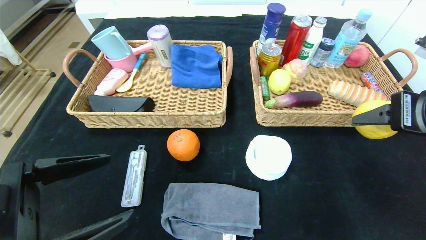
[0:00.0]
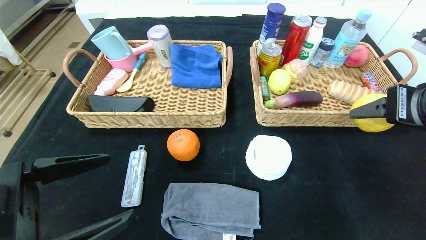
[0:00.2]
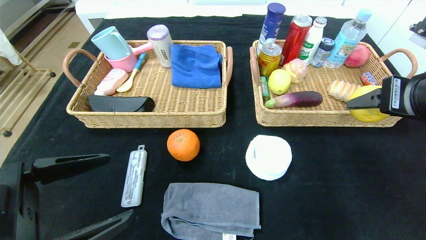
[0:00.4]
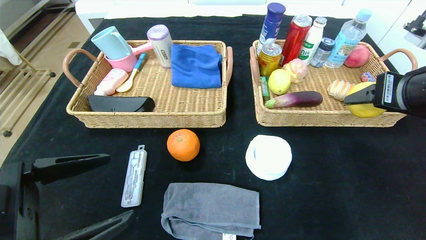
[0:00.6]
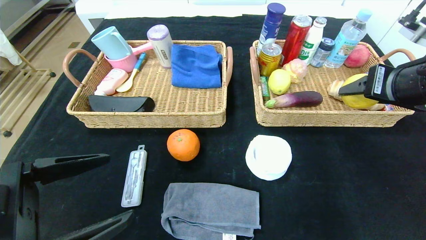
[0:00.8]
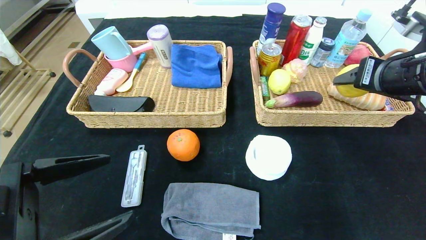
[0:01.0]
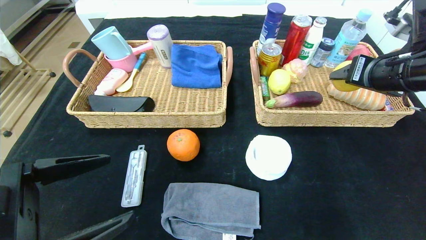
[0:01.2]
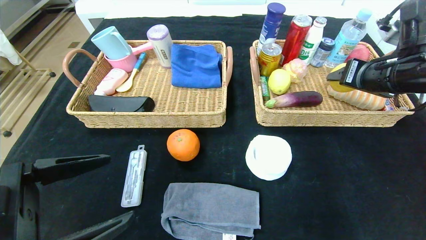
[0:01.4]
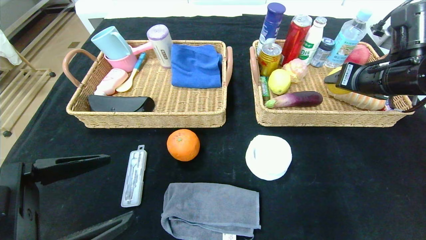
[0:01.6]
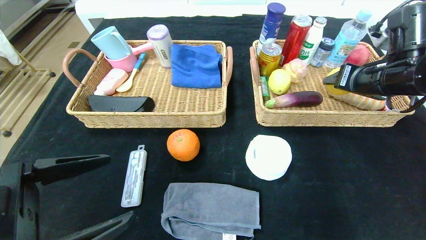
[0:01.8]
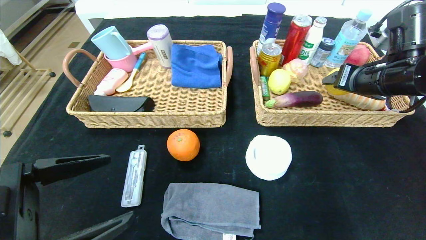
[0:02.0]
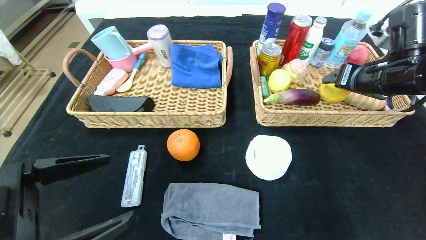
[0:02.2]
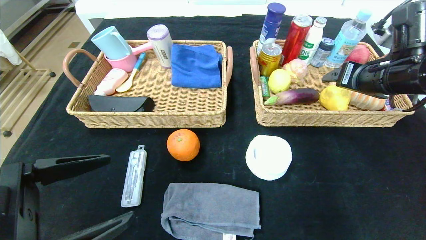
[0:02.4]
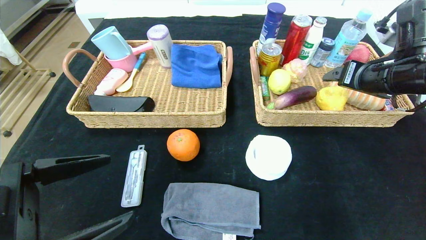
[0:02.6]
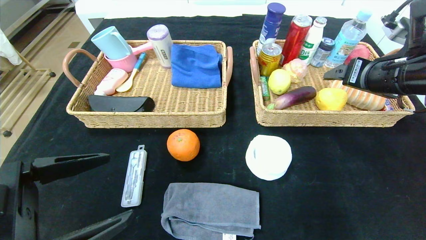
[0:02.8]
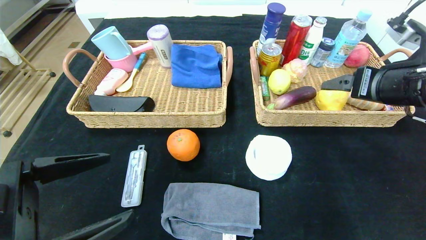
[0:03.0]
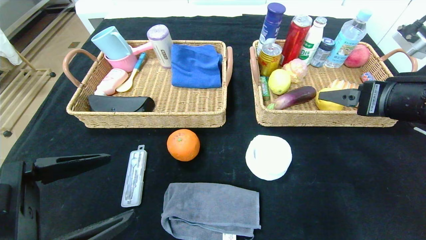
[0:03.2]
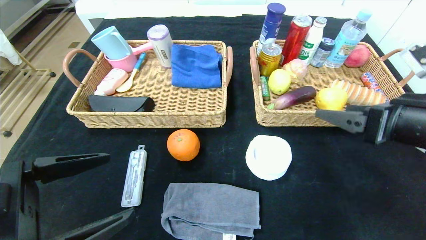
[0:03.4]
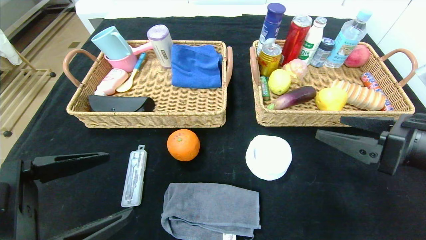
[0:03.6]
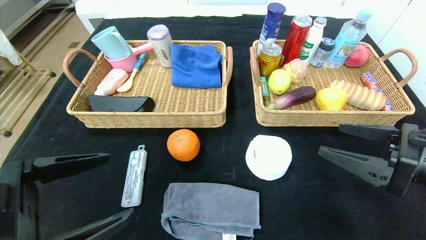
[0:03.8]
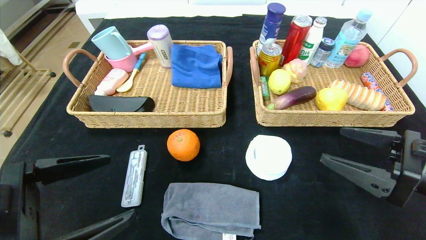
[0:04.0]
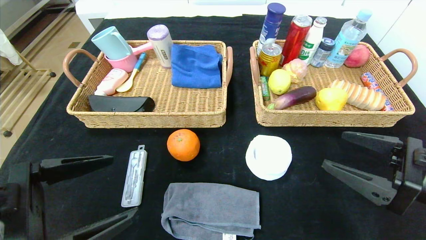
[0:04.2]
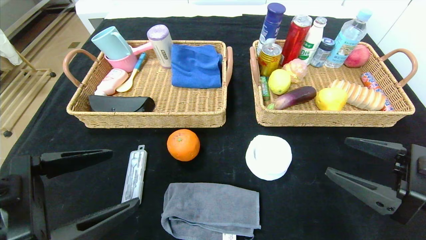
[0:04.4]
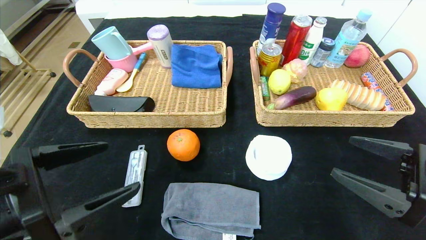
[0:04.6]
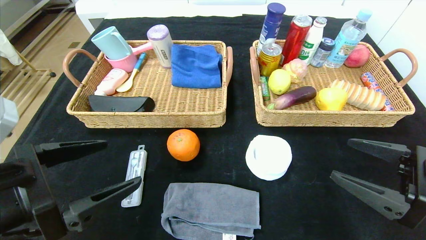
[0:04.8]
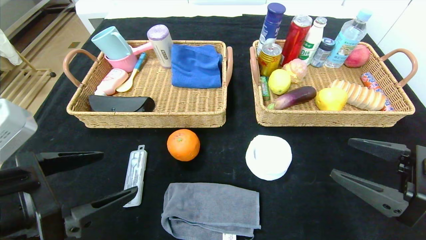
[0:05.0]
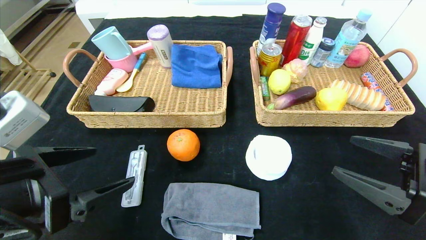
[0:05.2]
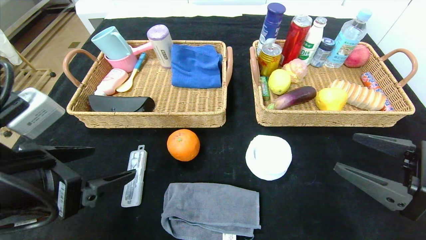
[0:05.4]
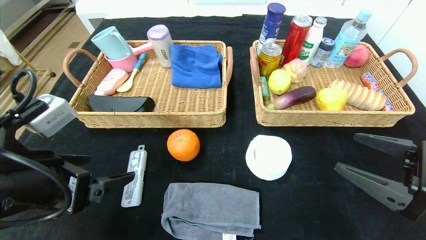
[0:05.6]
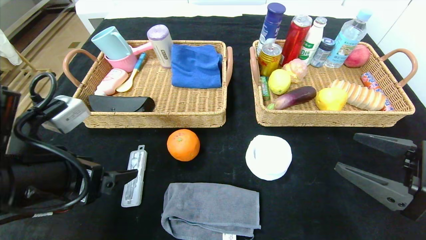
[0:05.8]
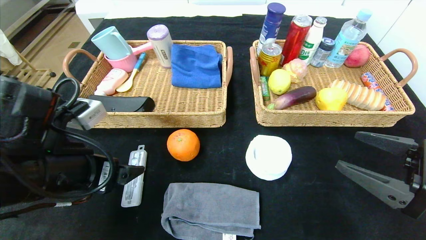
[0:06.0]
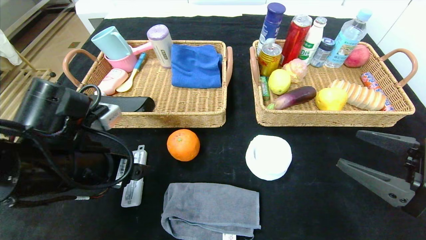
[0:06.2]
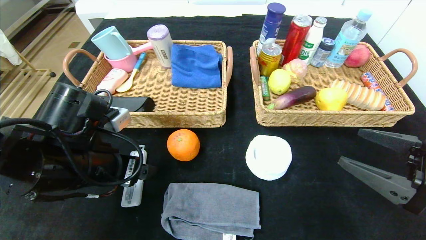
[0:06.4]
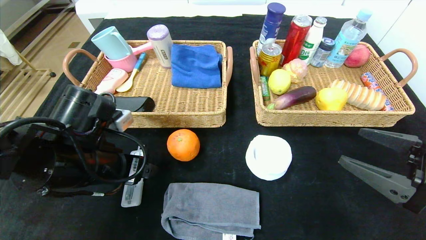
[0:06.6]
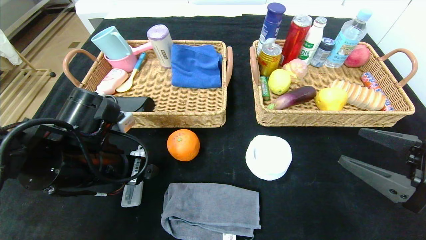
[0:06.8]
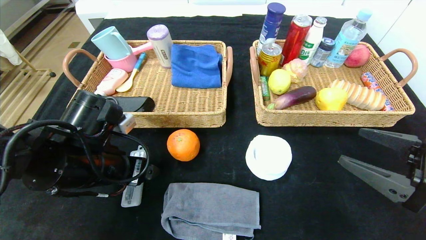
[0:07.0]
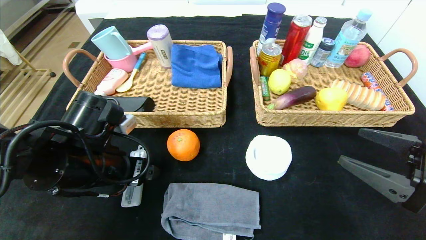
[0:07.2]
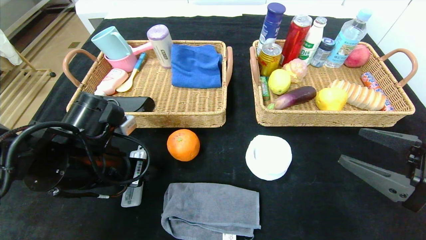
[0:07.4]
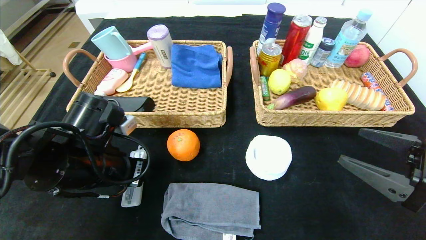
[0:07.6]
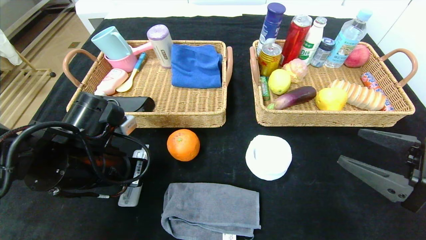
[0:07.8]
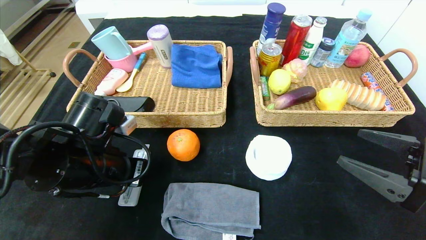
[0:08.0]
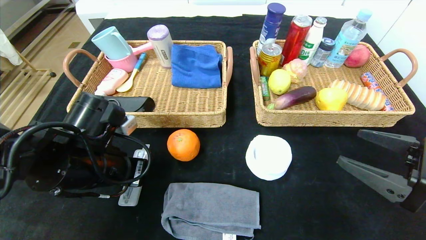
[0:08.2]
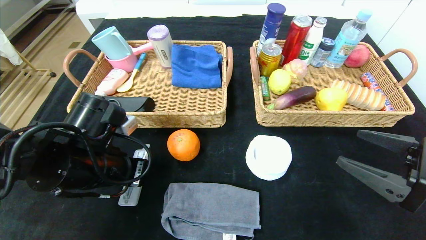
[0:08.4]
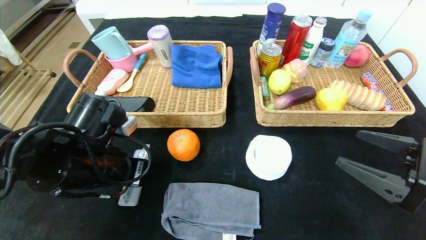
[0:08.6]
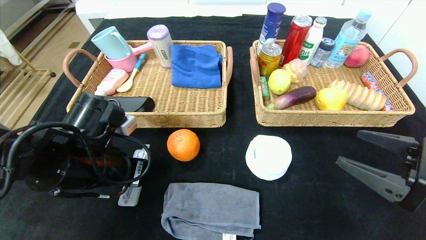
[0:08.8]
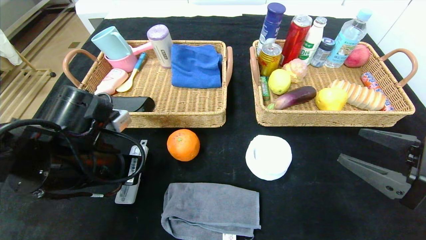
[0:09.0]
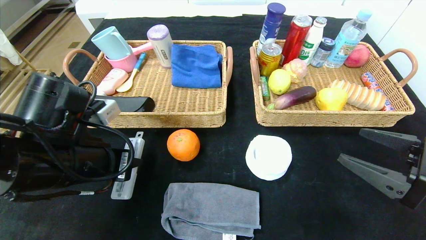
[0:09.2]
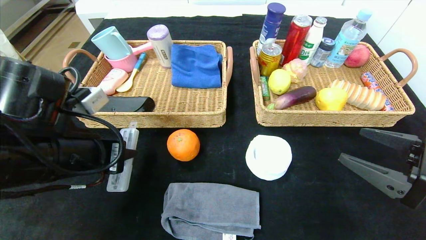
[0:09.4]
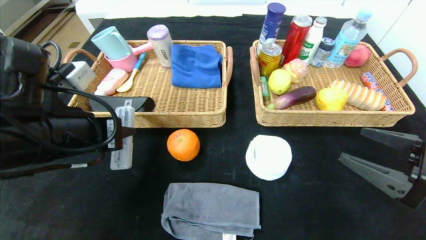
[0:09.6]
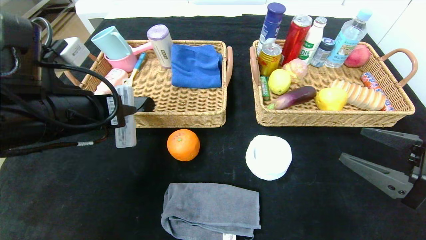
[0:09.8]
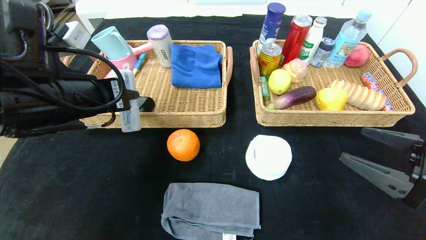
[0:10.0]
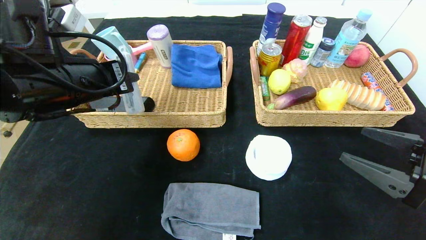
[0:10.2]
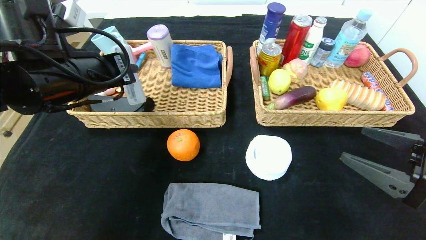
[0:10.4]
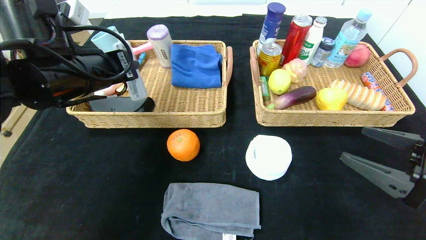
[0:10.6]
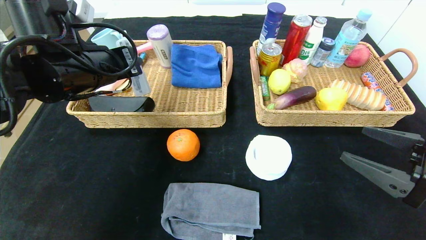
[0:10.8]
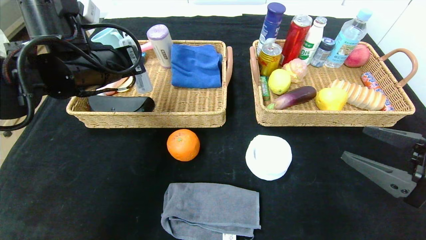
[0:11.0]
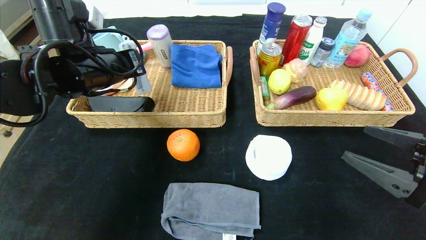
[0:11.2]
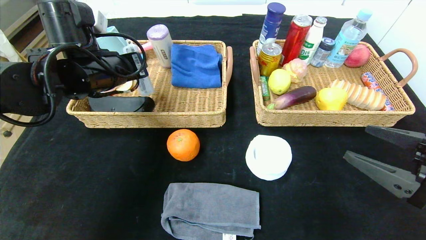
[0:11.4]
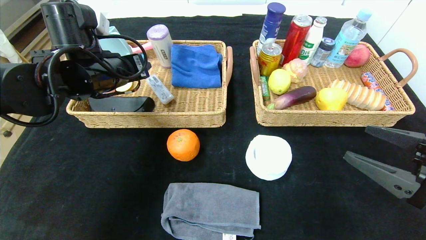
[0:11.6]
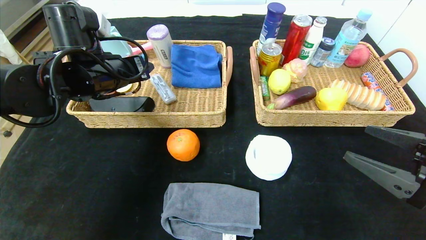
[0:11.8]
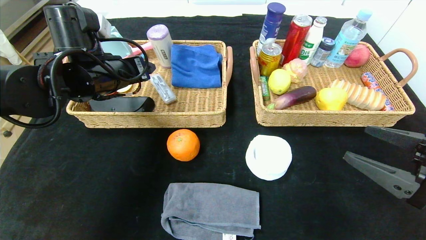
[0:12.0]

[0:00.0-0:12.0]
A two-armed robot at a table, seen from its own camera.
Step, 0:00.0 to 0:02.4: Grasp the pear and put it in the right basket.
Step, 0:02.6 to 0:11.4: Grasp the compass and put it in the left basket.
0:00.0 to 0:01.6: The right gripper heads forward, covering about 15 cm.
0:01.6 to 0:03.0: The right gripper shifts approximately 5 cm backward.
0:03.0 to 0:04.4: The right gripper moves backward and downward, approximately 15 cm.
0:04.4 to 0:06.0: The left gripper goes some 10 cm forward.
0:06.0 to 0:07.6: The left gripper moves roughly 5 cm, and closes its fingers.
0:07.6 to 0:09.0: There are only small adjustments of the grippers.
0:09.0 to 0:10.4: The left gripper travels upward and forward by about 10 cm.
0:10.4 to 0:12.0: The left gripper goes roughly 5 cm forward, and opens.

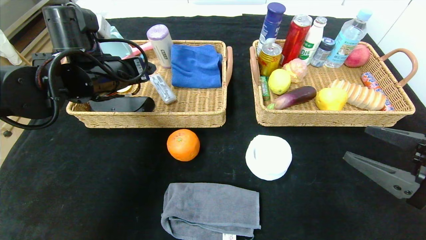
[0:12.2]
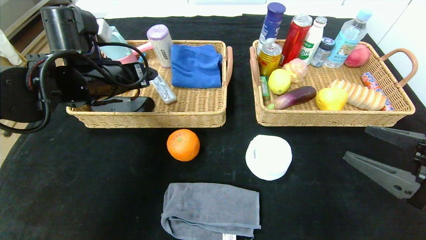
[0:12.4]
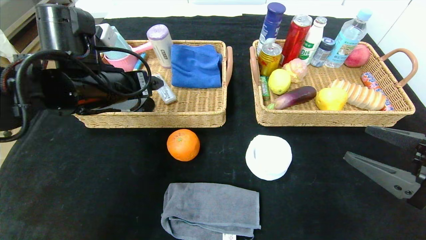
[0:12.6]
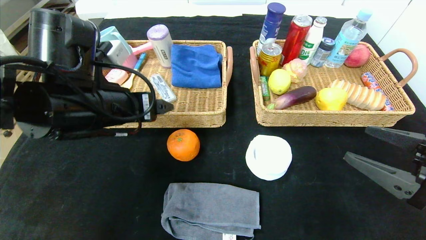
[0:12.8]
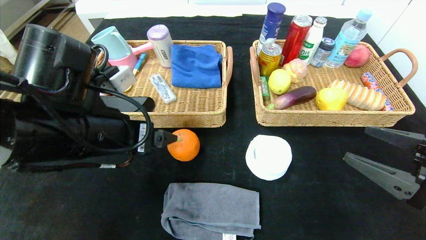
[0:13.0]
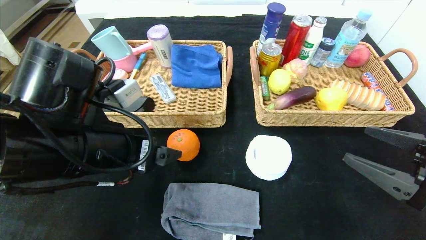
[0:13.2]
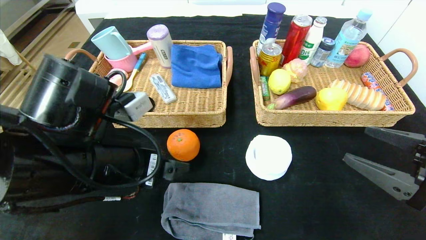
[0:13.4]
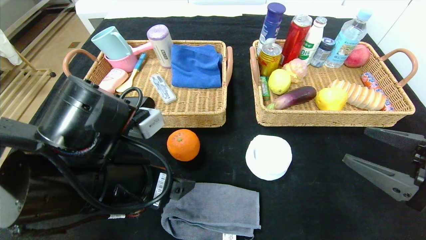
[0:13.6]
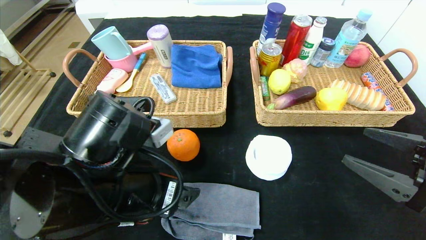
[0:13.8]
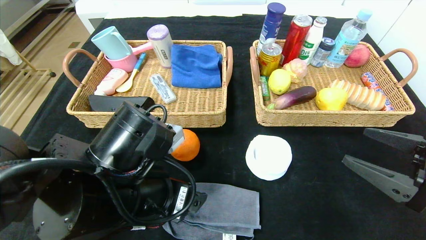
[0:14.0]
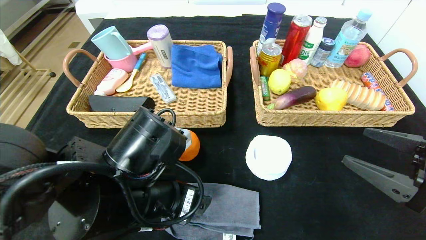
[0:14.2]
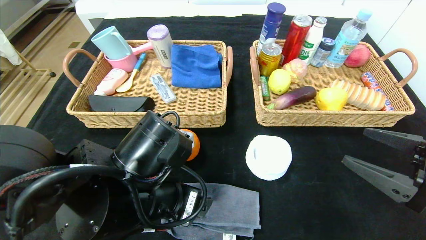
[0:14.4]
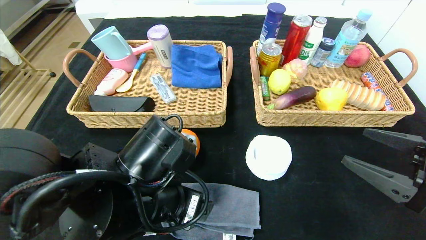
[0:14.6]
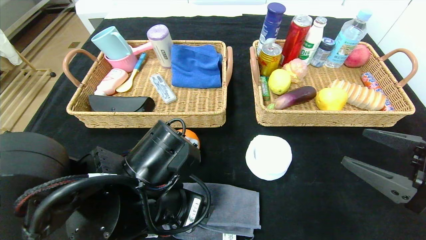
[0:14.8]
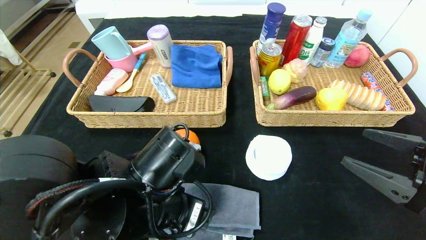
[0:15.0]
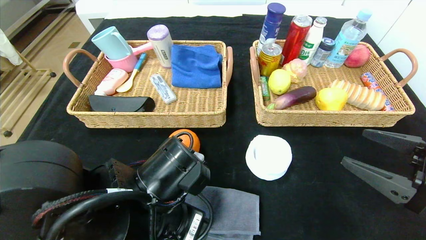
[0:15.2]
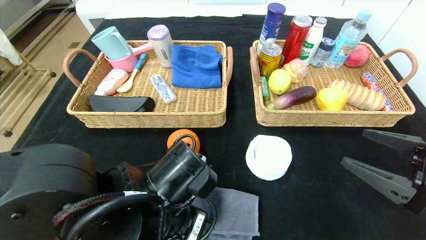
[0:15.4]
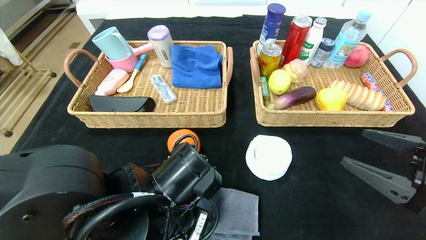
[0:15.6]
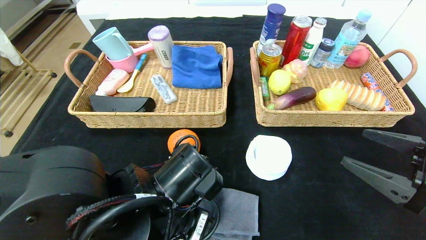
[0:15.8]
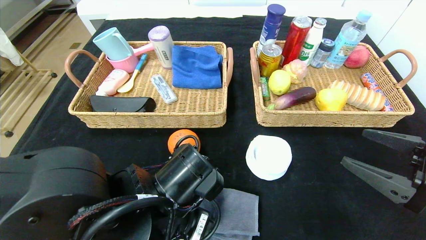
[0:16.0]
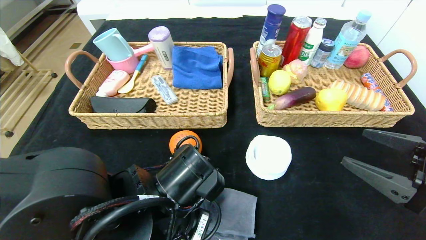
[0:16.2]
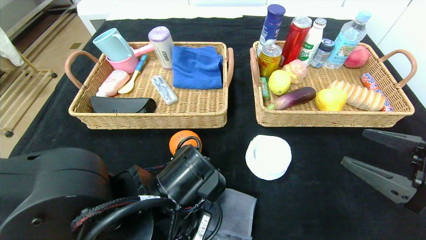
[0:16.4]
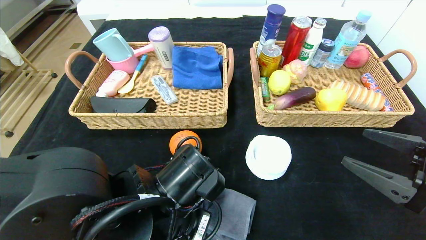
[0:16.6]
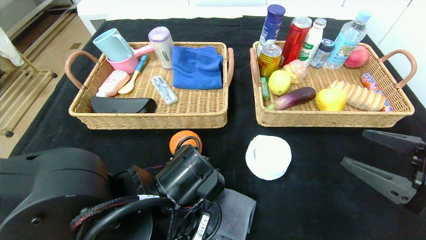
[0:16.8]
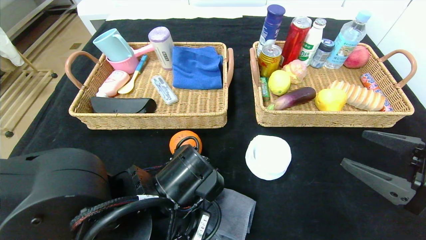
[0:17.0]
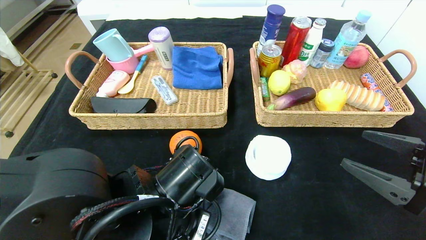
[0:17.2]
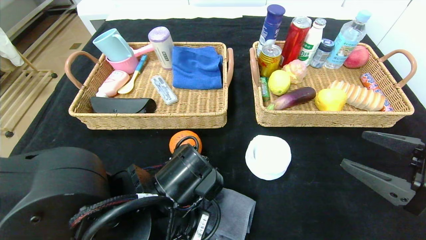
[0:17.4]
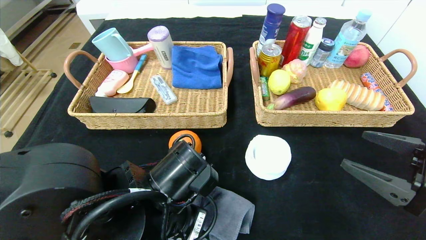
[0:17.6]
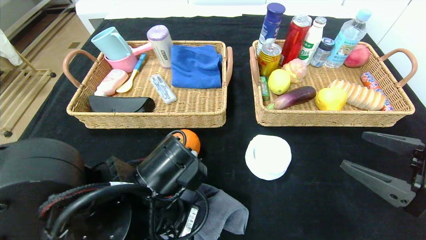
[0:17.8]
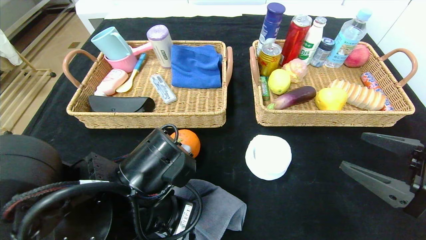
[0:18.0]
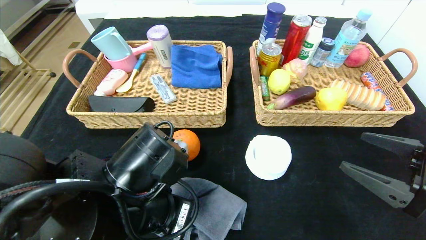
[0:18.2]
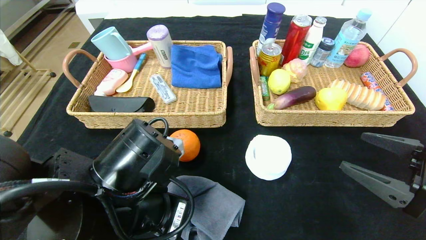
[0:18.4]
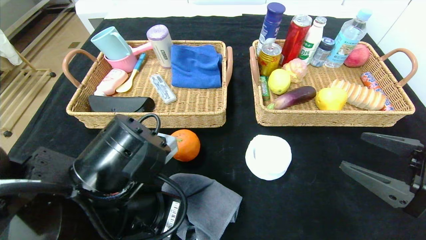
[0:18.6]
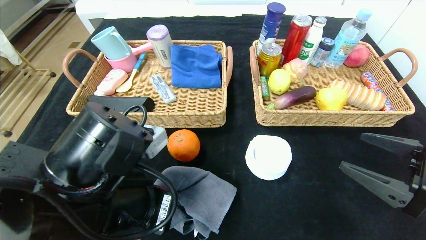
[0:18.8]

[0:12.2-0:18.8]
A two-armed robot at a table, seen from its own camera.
0:12.2 to 0:13.8: The left gripper heads backward, to the right and downward, covering approximately 20 cm.
0:13.8 to 0:15.4: The left gripper changes place by some 5 cm.
0:15.4 to 0:17.2: The left gripper closes up.
0:17.2 to 0:18.8: The left gripper goes about 5 cm upward, and closes its fingers.
